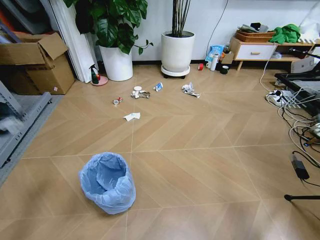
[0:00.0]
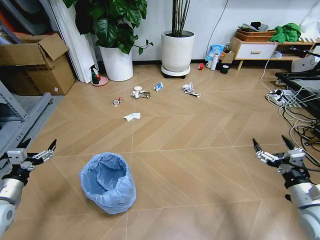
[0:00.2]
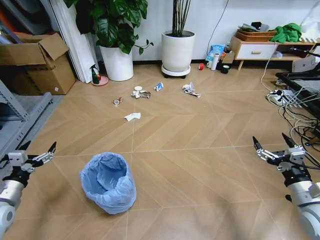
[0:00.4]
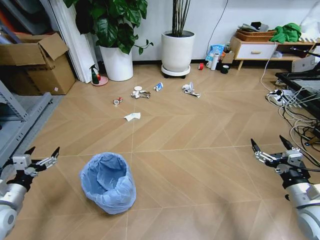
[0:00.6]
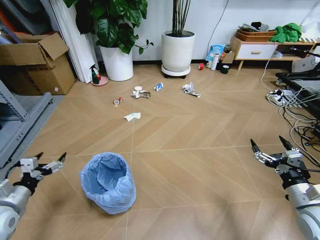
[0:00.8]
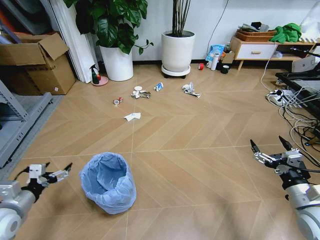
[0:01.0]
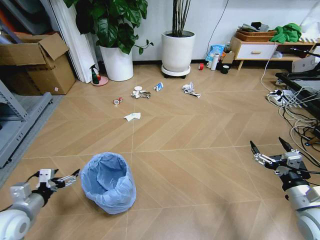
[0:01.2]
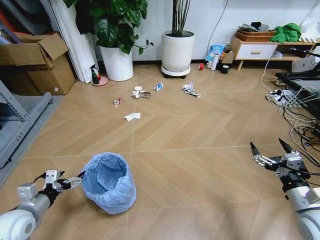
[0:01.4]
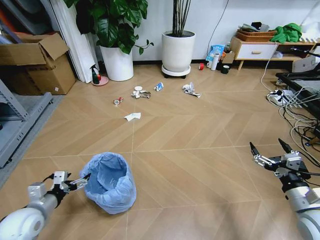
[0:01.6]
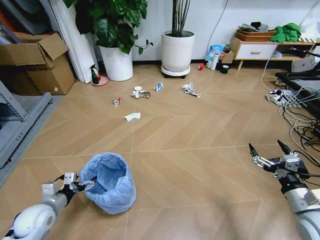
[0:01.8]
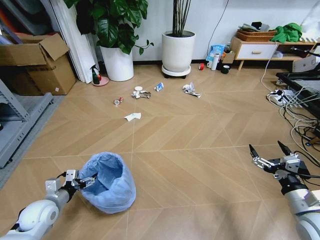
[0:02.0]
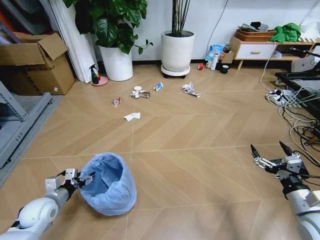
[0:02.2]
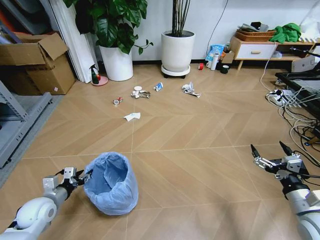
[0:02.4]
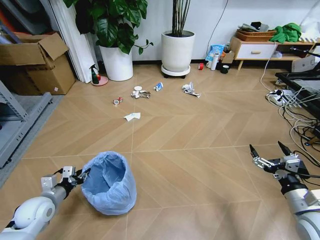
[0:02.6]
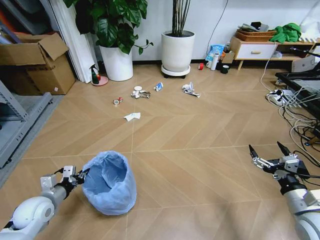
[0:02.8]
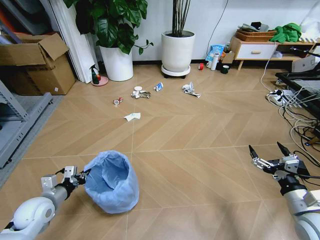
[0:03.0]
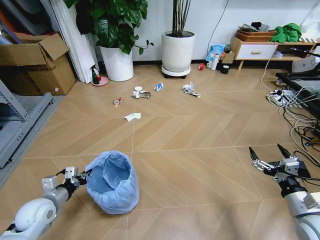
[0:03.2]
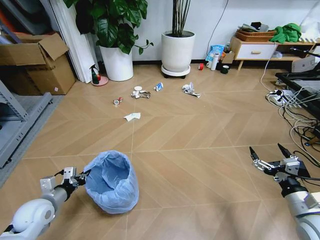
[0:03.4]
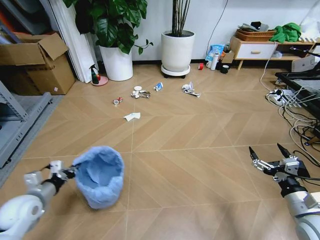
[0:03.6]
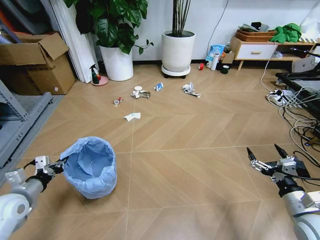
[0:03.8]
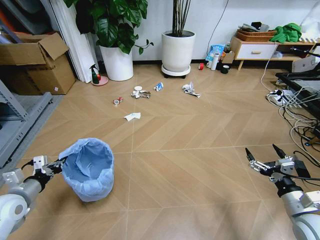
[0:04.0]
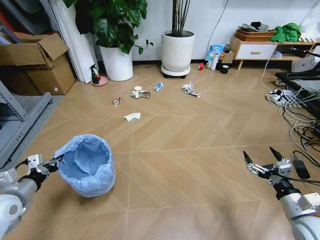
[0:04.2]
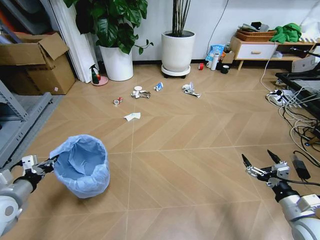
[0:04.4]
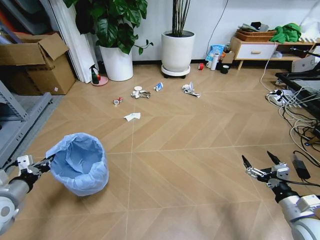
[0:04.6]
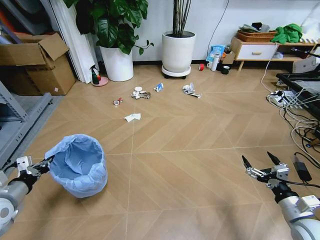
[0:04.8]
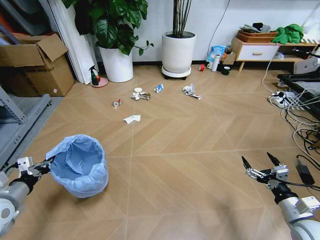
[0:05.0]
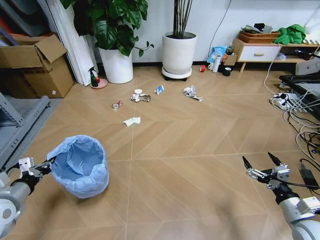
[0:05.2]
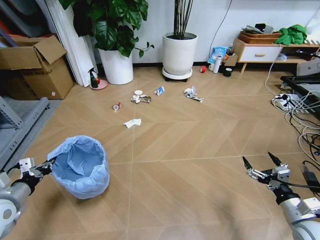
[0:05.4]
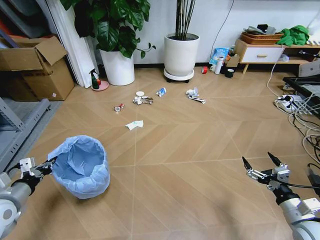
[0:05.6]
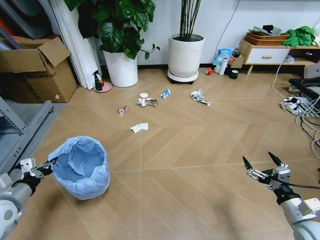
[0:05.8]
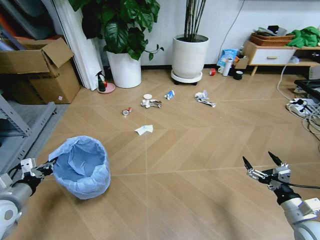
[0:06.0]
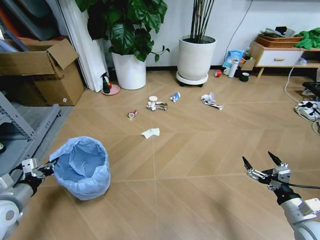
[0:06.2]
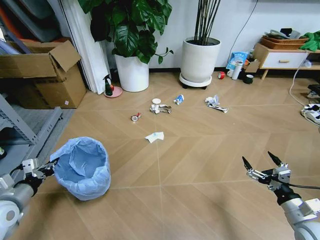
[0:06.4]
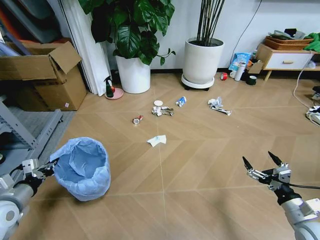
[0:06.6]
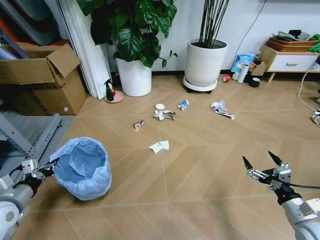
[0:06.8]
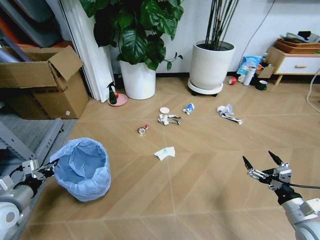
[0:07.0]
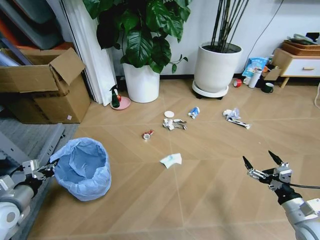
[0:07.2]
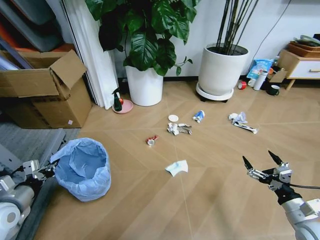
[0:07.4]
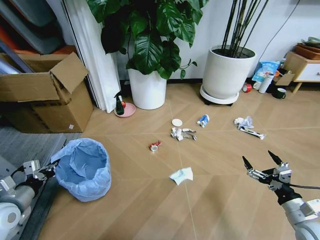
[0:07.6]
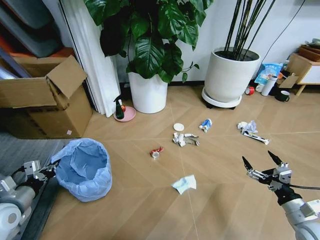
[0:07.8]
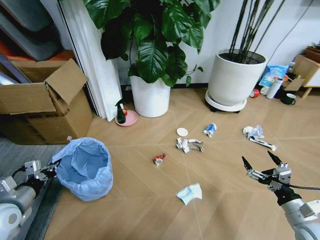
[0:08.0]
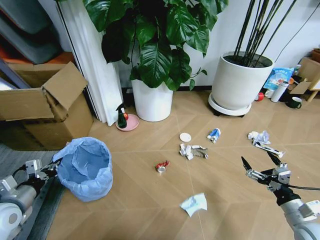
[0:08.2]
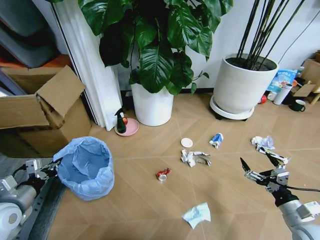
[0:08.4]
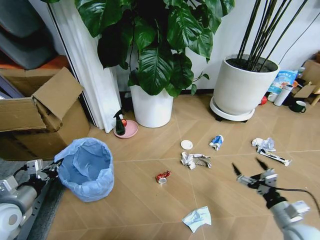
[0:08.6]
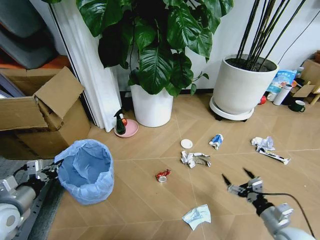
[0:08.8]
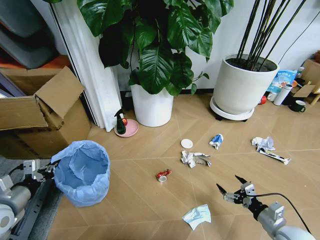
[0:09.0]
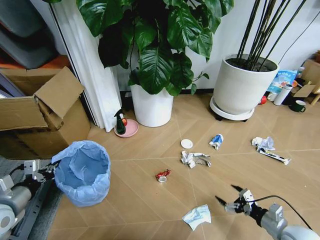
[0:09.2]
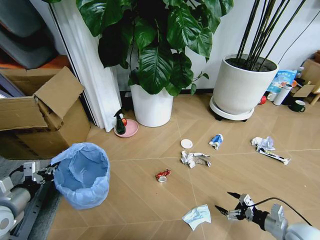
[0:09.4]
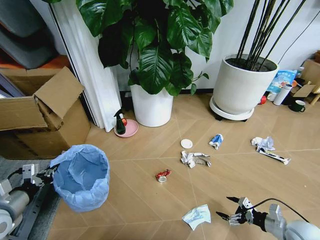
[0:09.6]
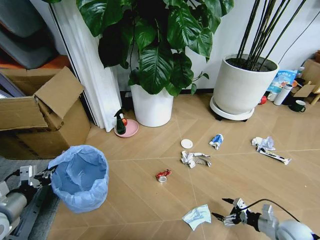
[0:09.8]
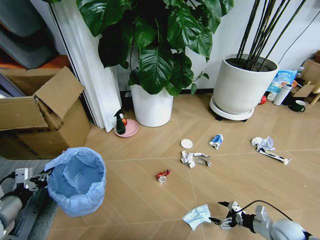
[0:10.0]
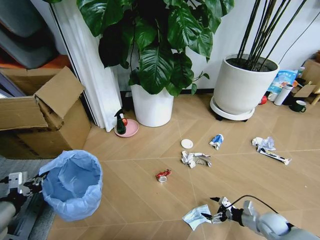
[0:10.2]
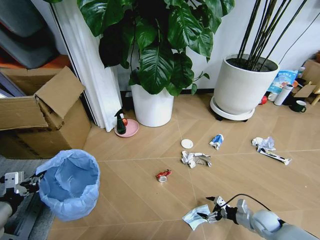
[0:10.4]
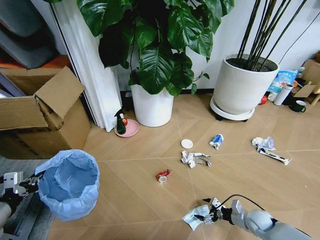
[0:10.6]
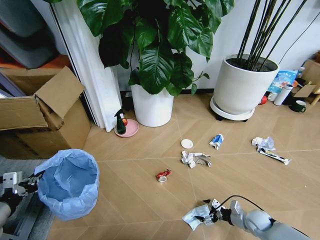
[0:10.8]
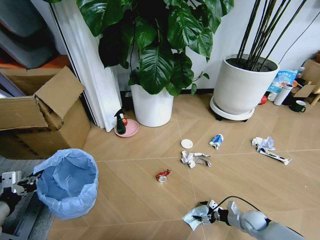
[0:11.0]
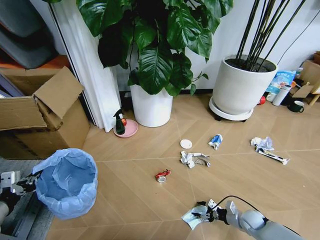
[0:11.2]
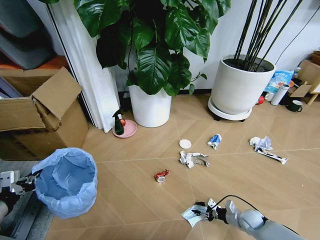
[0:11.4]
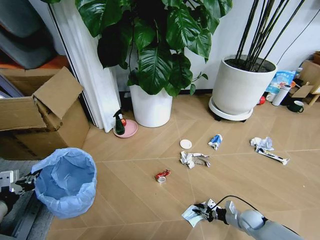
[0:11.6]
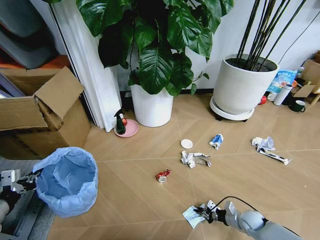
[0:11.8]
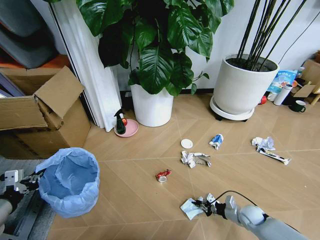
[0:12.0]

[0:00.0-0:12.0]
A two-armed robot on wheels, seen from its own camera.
Task of the whole recording: Pick up the trash bin and place the garbage on the floor into it.
0:01.6 to 0:03.0: The left gripper closes up.
0:03.0 to 0:04.4: The left gripper shifts roughly 10 cm upward and to the left.
0:07.6 to 0:09.0: The right gripper goes some 5 cm downward.
0:09.0 to 0:10.4: The left gripper shifts by some 5 cm. Meanwhile the right gripper moves downward and forward, approximately 15 cm.
0:10.4 to 0:12.0: The right gripper closes its fingers.

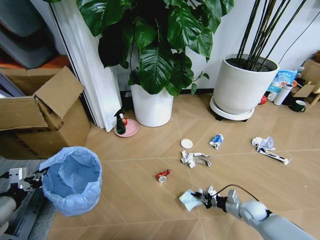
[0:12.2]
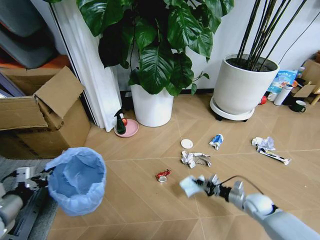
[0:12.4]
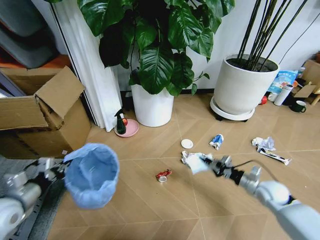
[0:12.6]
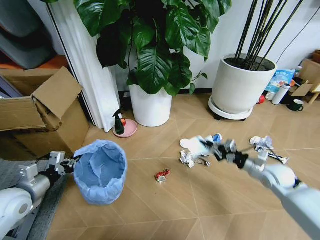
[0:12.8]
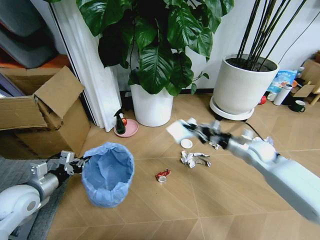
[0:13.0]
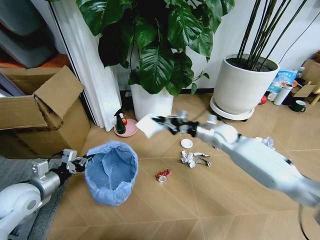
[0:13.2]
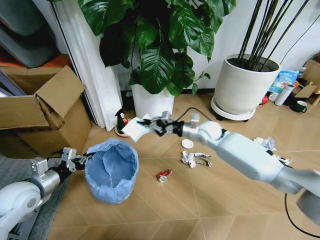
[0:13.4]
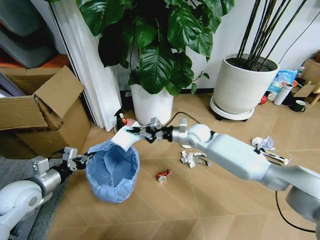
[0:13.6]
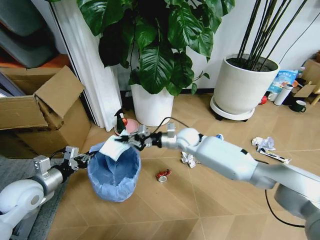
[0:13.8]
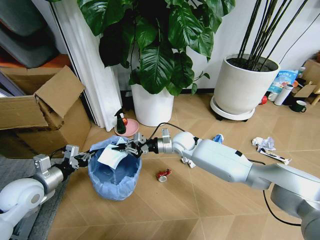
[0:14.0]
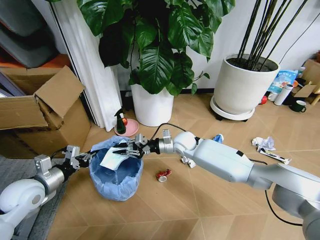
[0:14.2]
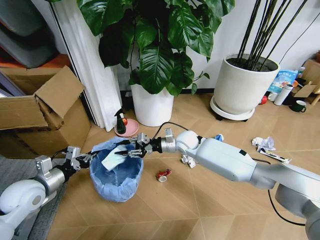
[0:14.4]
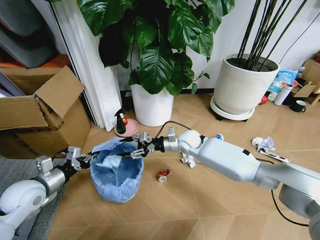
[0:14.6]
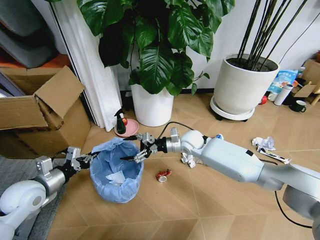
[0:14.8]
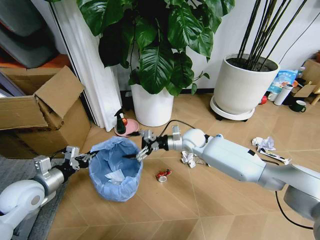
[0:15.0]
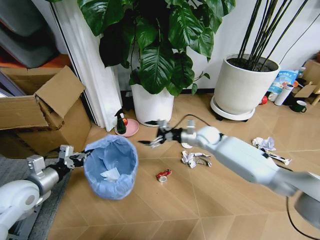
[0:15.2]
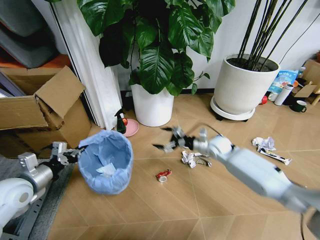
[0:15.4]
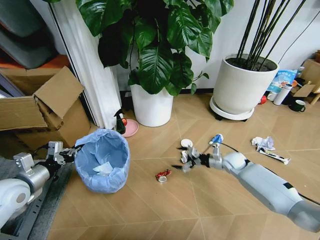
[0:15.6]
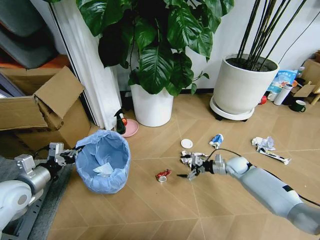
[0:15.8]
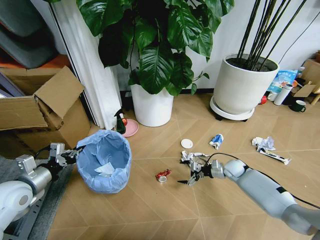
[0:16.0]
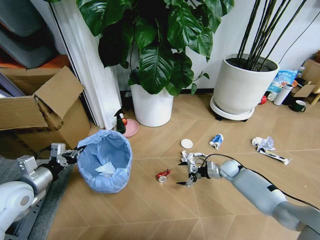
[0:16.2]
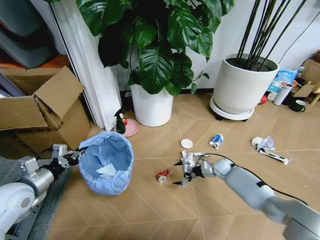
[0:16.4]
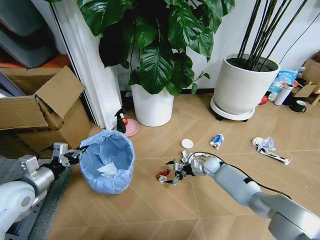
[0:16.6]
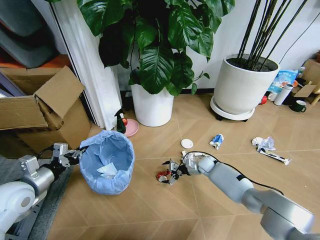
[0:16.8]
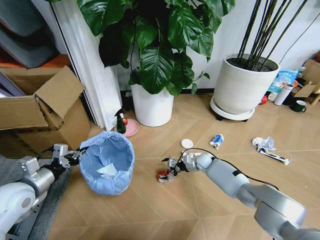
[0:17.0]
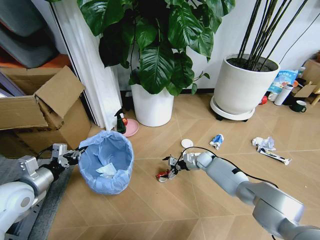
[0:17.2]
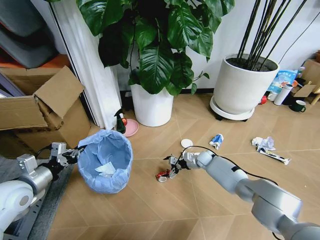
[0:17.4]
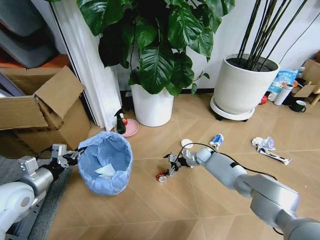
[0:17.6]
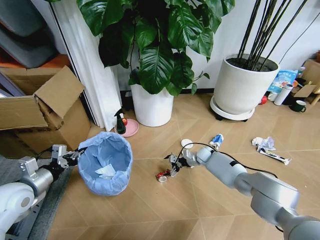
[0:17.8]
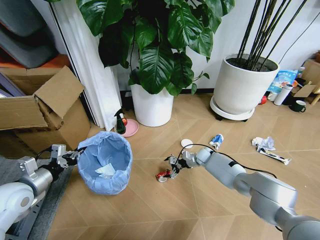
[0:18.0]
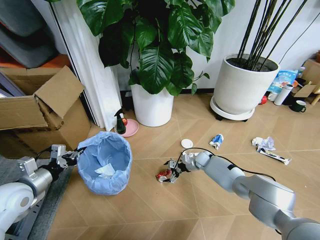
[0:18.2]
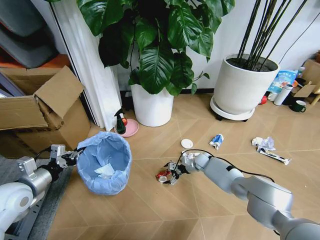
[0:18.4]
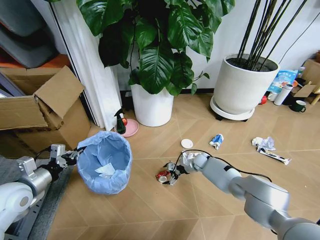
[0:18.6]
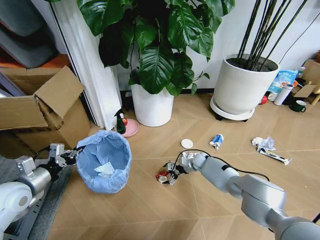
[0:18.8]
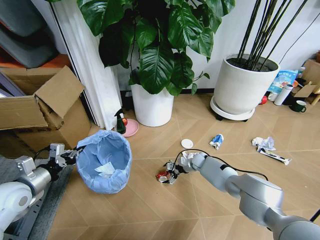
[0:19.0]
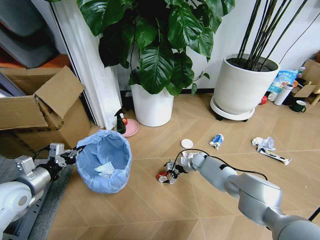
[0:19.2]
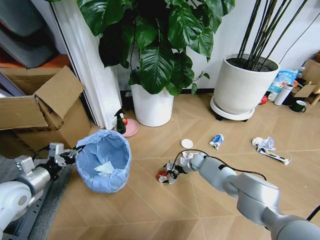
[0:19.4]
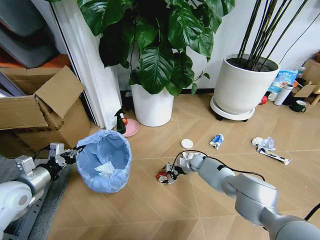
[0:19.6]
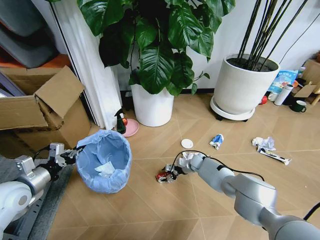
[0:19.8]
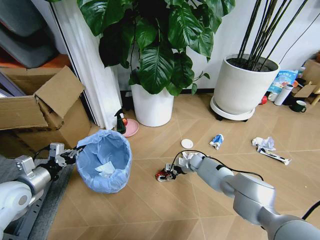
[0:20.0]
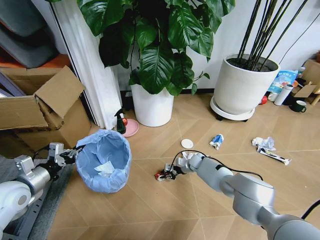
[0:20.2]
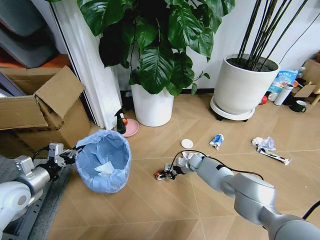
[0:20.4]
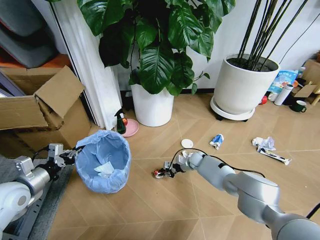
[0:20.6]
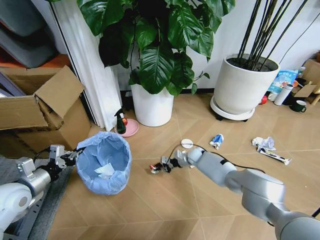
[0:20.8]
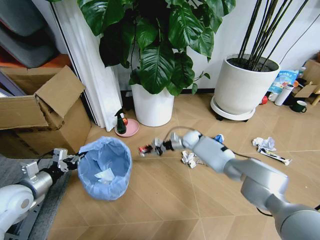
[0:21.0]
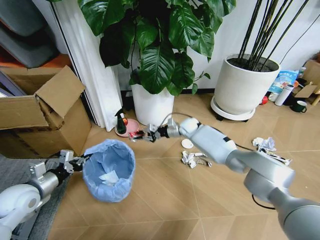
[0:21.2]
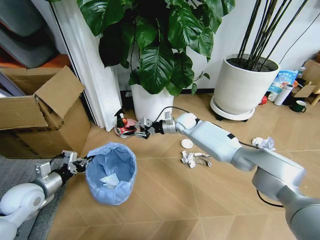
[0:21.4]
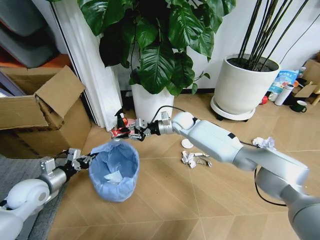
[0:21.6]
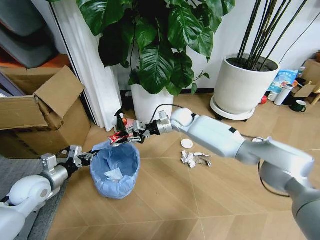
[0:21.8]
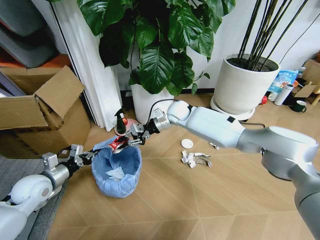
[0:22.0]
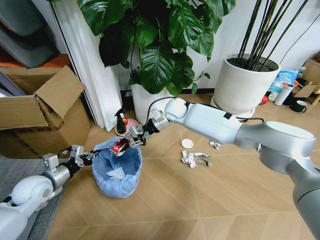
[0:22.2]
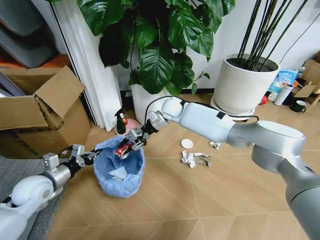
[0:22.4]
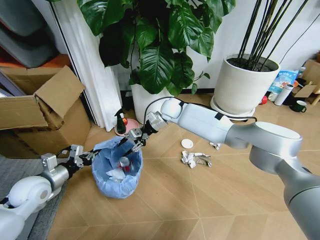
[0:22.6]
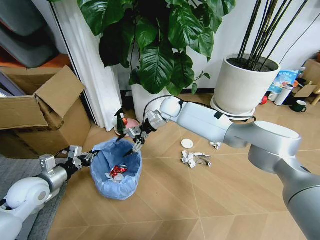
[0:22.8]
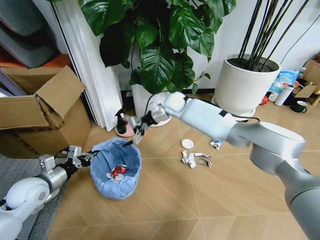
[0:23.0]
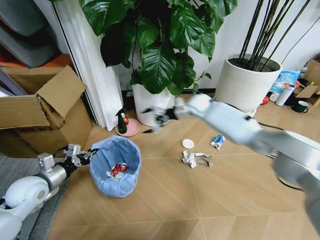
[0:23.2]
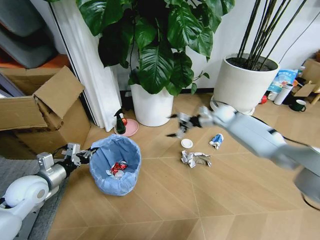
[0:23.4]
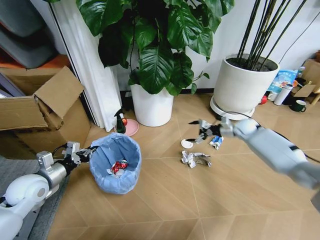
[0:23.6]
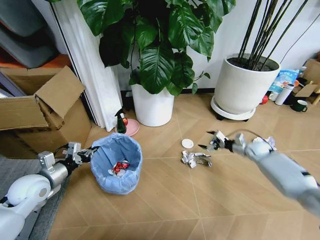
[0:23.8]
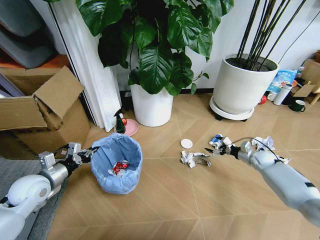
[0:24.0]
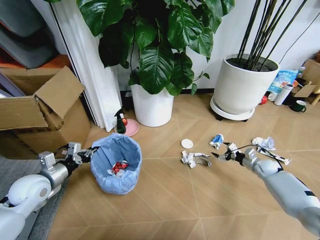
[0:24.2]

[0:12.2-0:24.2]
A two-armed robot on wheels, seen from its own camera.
Task of the whole recording: Pick up the trash bin and place the garbage on the floor into it.
0:12.2 to 0:13.8: The right gripper goes roughly 40 cm to the left, upward and forward. The left gripper moves forward and to the right, about 10 cm.
0:13.8 to 0:15.2: The right gripper shifts roughly 10 cm to the right, and opens its fingers.
0:15.2 to 0:16.6: The right gripper travels downward by approximately 20 cm.
0:16.6 to 0:18.2: The right gripper moves about 5 cm.
0:18.2 to 0:19.8: The right gripper closes.
0:19.8 to 0:21.2: The right gripper moves upward and forward, about 20 cm, and closes up.
0:21.2 to 0:22.6: The right gripper moves upward and to the left, about 15 cm.
0:22.6 to 0:24.2: The right gripper heads to the right and downward, covering roughly 50 cm, and opens.
